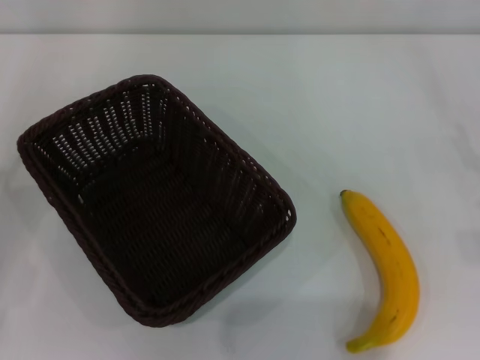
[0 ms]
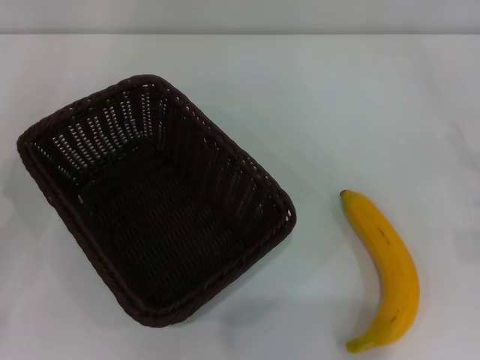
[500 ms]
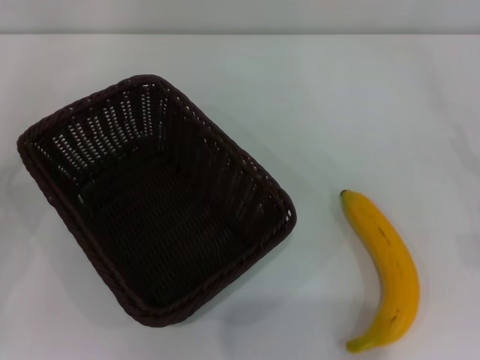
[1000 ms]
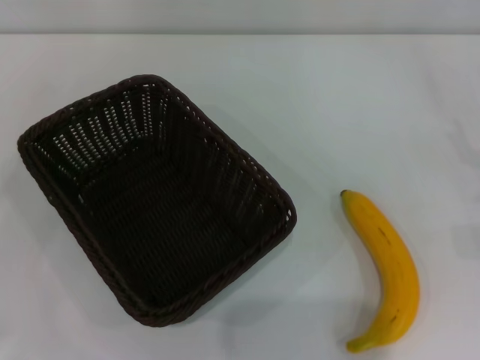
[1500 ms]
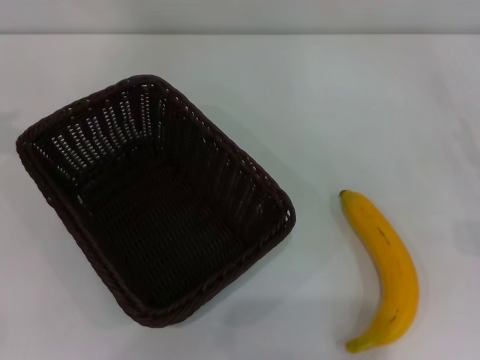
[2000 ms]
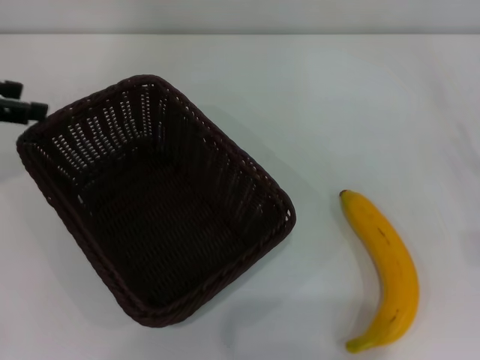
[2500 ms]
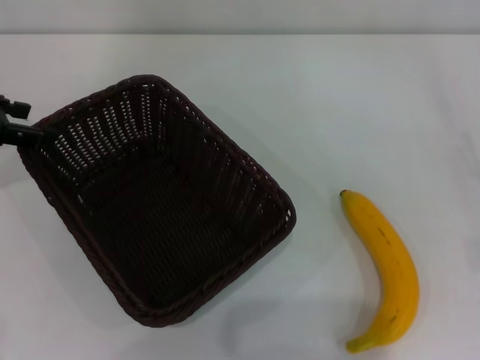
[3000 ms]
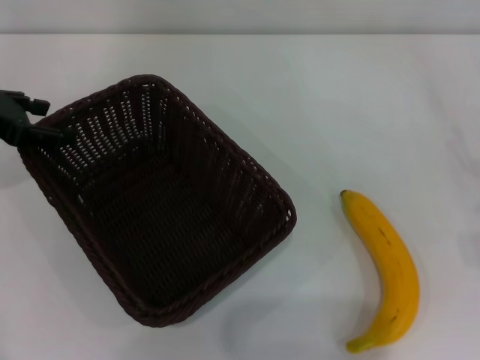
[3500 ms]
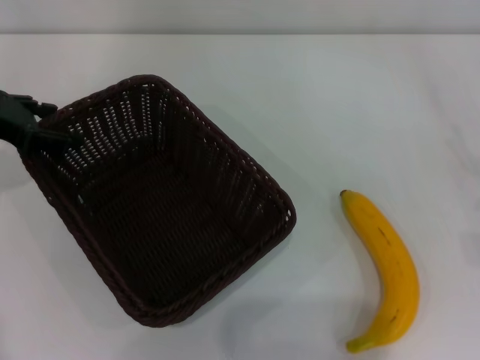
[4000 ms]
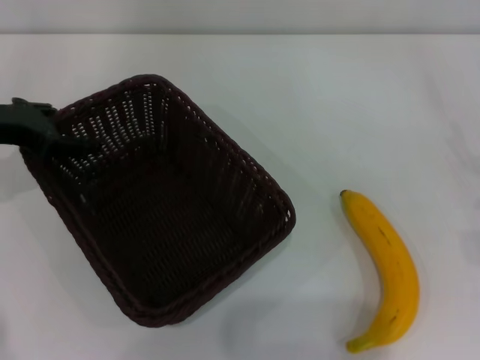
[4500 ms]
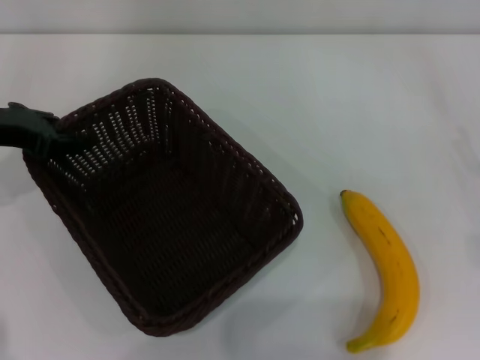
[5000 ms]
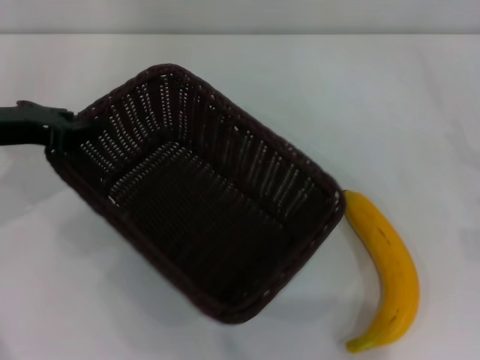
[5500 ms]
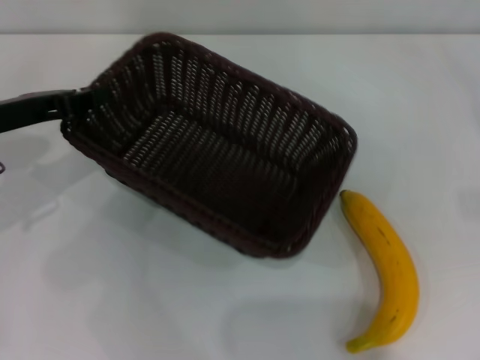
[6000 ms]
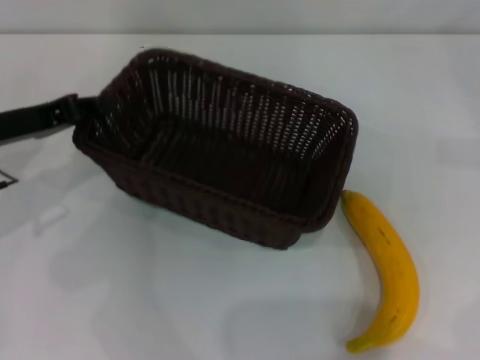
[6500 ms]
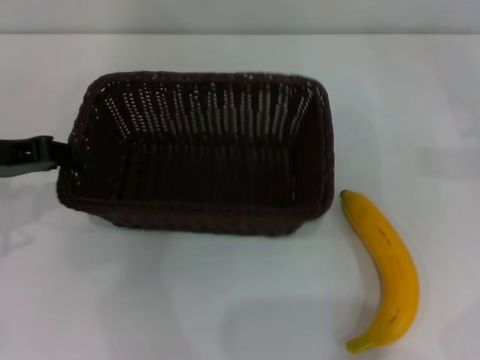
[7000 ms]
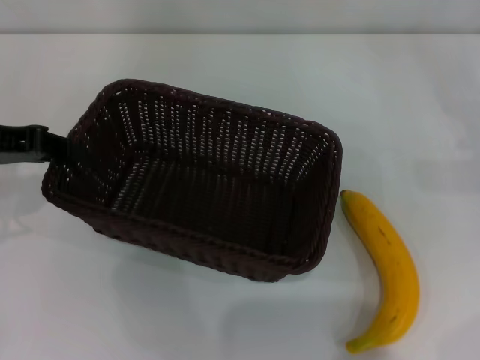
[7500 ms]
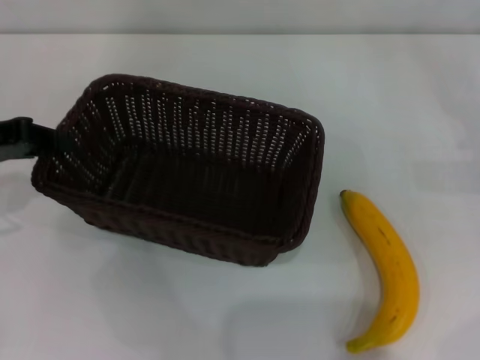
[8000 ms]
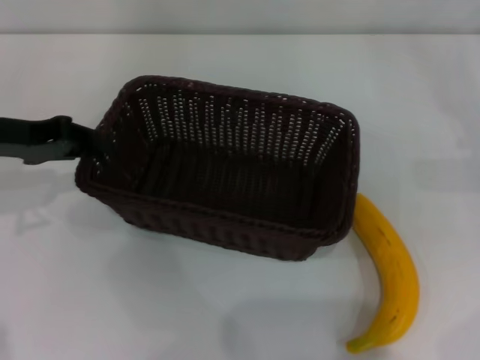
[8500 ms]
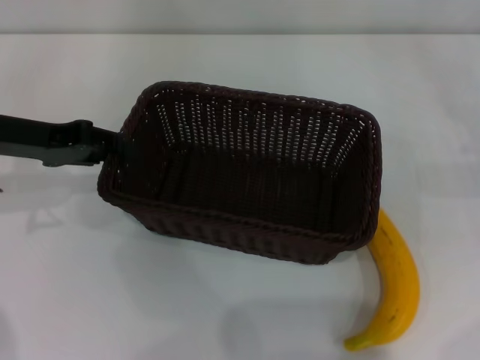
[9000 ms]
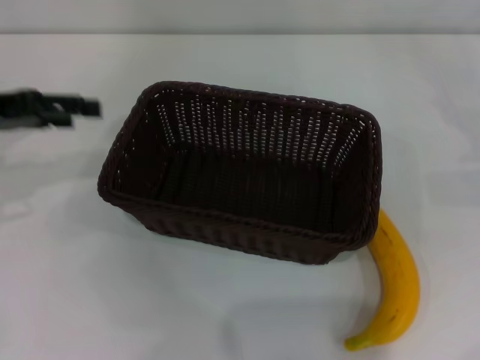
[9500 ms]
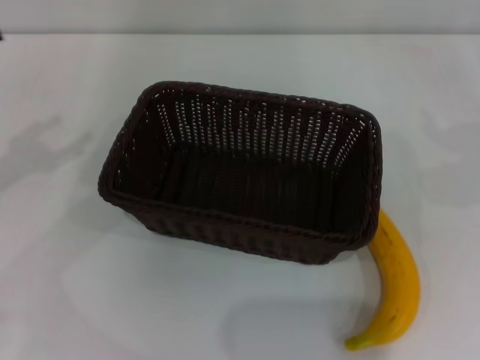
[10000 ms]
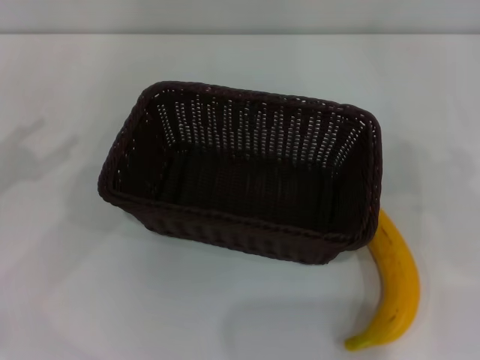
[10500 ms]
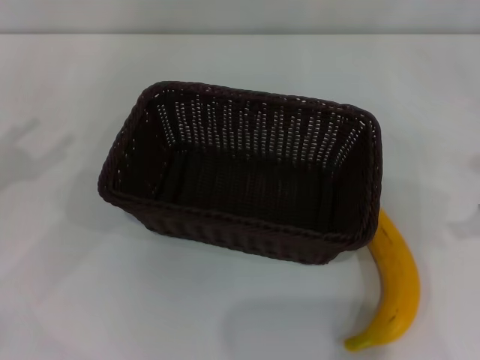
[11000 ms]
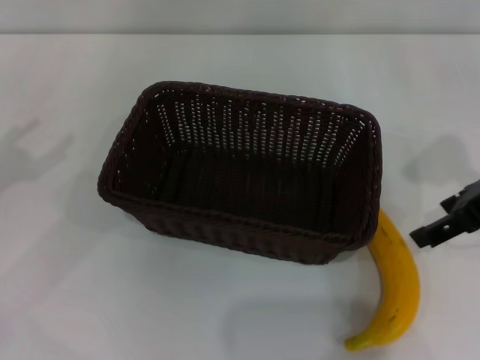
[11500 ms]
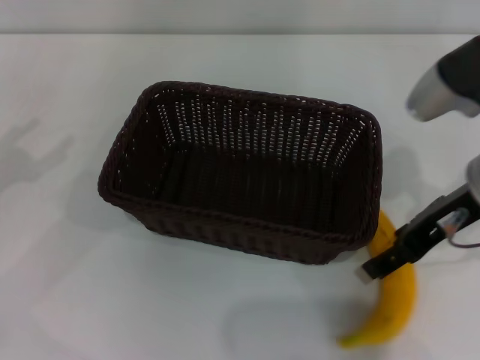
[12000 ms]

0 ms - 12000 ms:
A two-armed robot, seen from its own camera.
Step, 0 ms - 5500 ms: Pick up the dark basket with the left gripper.
Step, 6000 ms - 9000 ms: Place the dark basket in the center of view with the left gripper.
0 ms - 2000 ms: The left gripper goes some 25 cm upward and forward.
2000 ms - 4000 ms: The left gripper travels downward and to the right by some 10 cm.
4000 ms - 6000 ms: The left gripper changes place by approximately 5 cm, and closes; the right gripper heads to the right, covering some 5 cm.
6000 ms - 8000 ms: The right gripper moves some 5 cm.
8000 ms - 10000 ms: The right gripper moves upward, about 5 cm. The left gripper shifts some 5 cm to the left, and opens up.
10000 ms - 12000 ms: The right gripper goes approximately 25 cm to the left.

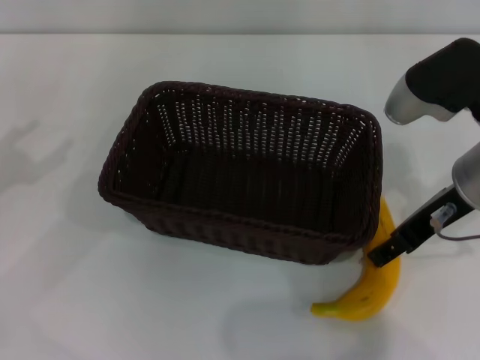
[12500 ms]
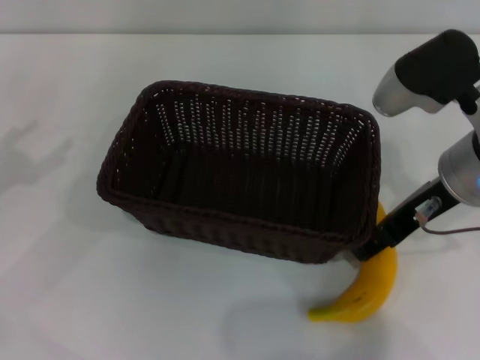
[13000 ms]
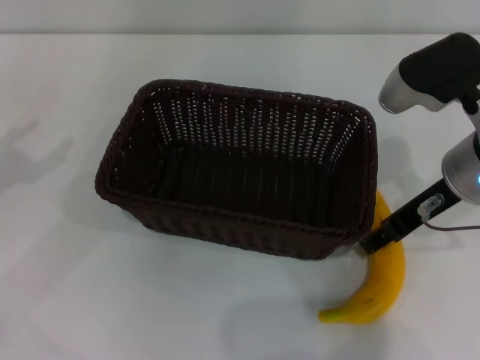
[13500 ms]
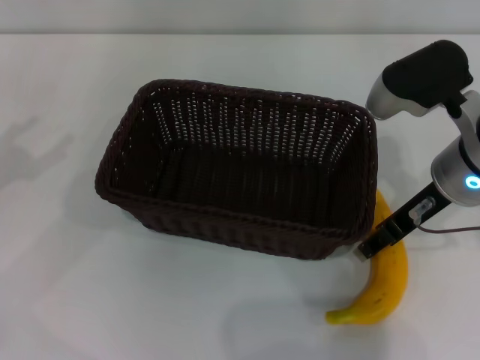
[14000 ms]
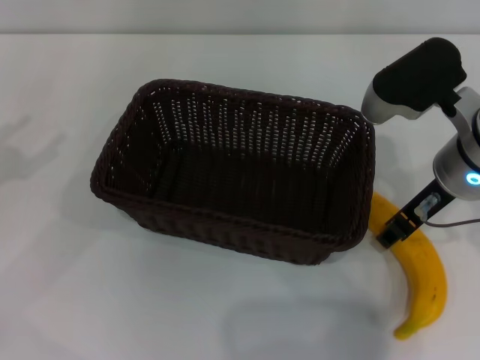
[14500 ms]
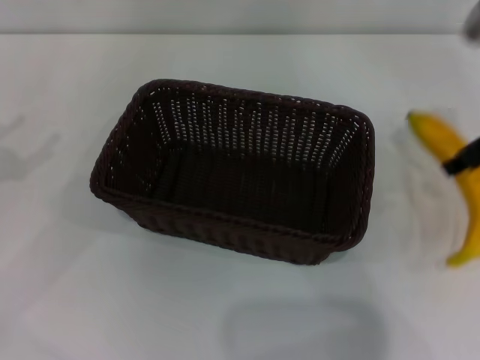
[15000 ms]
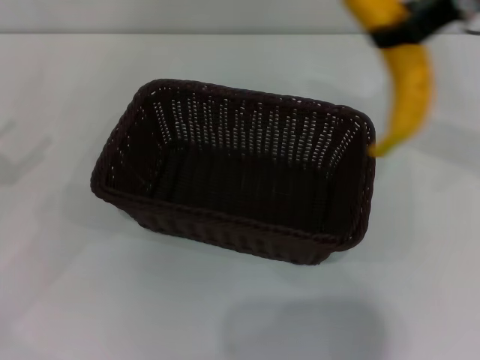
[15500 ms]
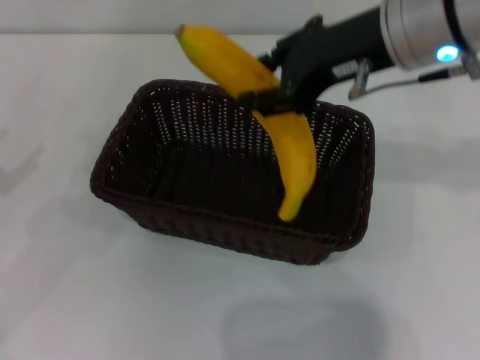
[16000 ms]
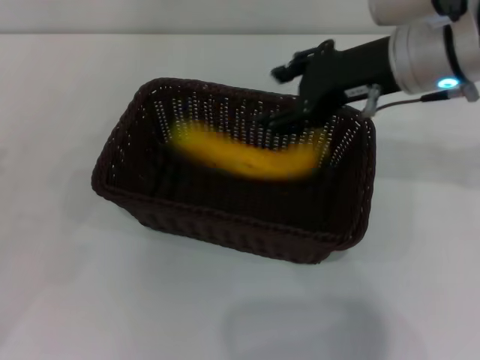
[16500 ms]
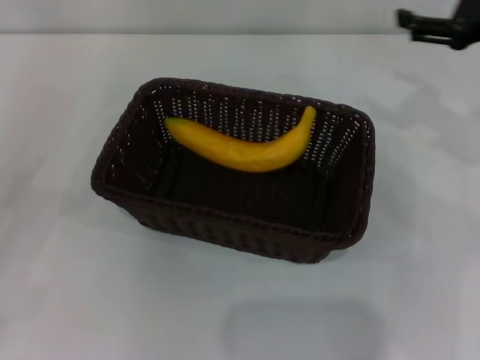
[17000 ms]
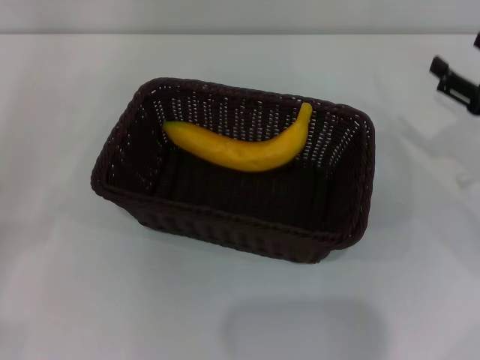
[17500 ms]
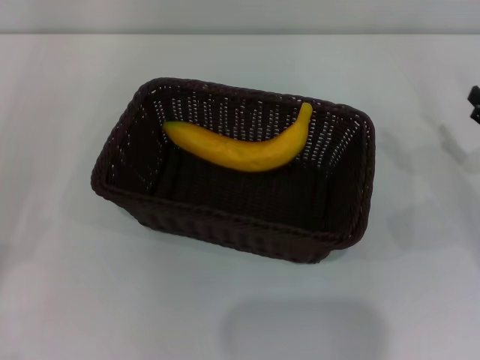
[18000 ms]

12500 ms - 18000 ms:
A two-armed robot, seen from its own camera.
Step, 12500 ms - 15000 ms: Pick up the banana with the right gripper.
Step, 15500 ms - 16500 ms: Place the banana into the dark basket with the right gripper.
12500 ms - 14500 ms: The right gripper closes up.
14500 ms - 16000 ms: The right gripper is displaced upward by about 10 cm.
16000 ms - 18000 ms: The left gripper is displaced backward and downward by some 15 cm, while the right gripper goes roughly 30 cm downward and to the right, and opens up.
